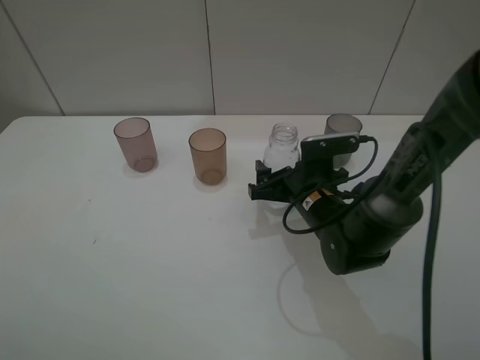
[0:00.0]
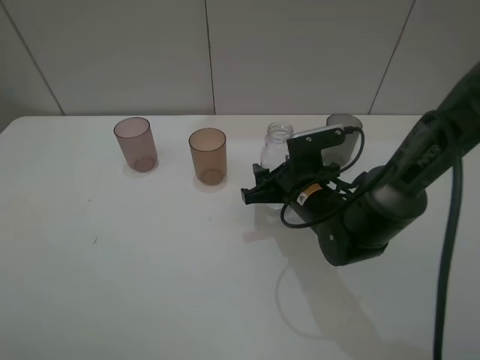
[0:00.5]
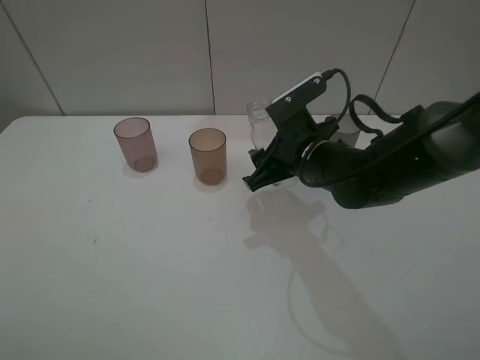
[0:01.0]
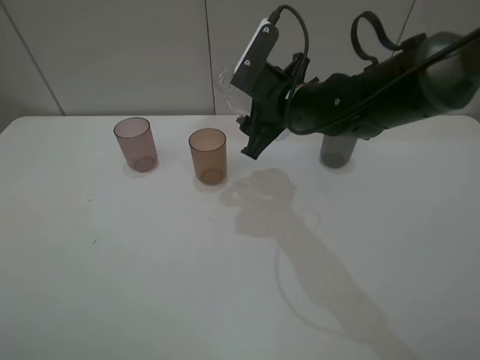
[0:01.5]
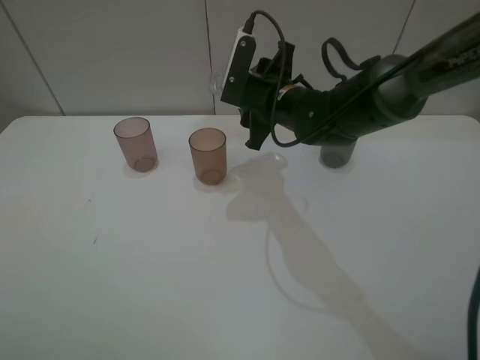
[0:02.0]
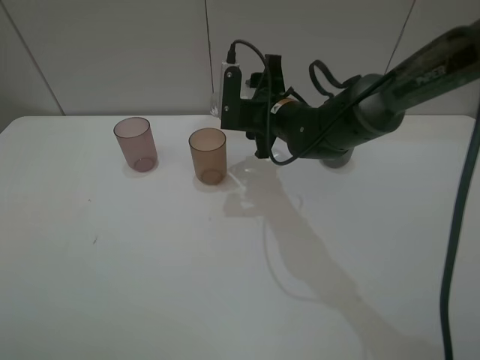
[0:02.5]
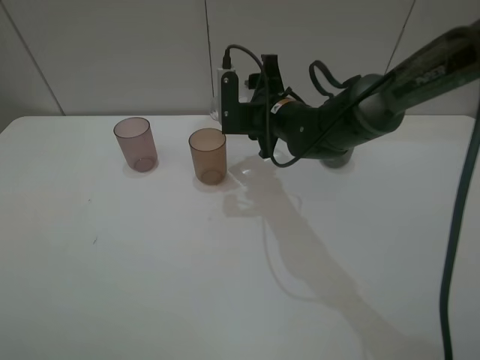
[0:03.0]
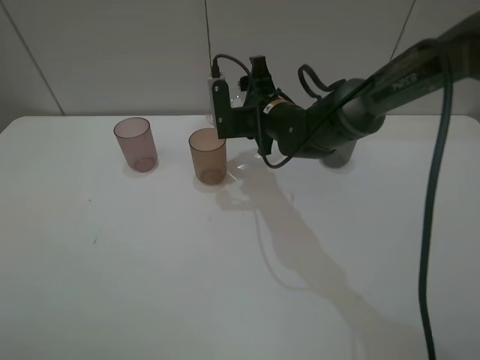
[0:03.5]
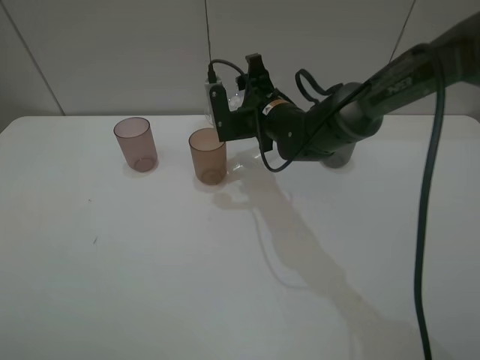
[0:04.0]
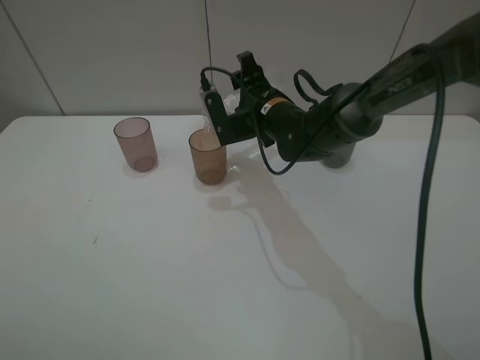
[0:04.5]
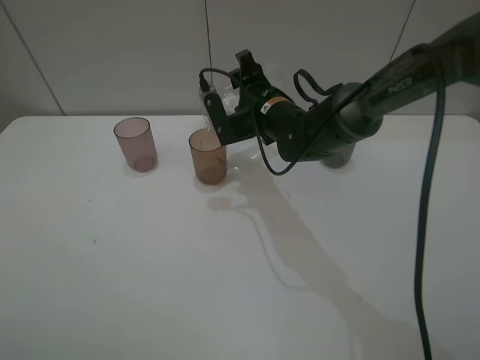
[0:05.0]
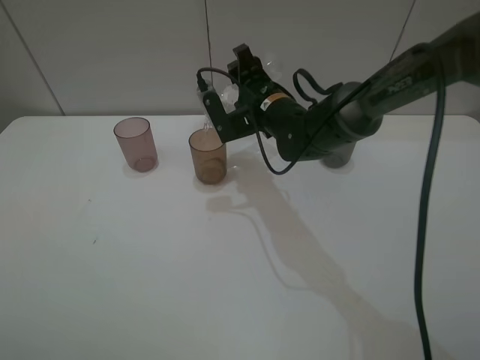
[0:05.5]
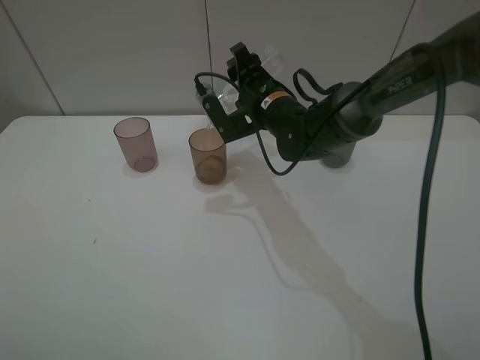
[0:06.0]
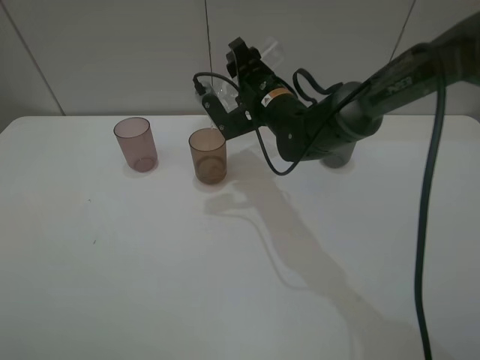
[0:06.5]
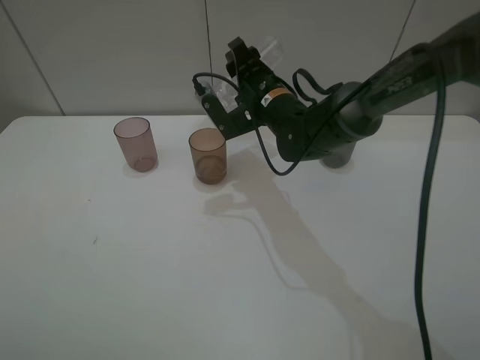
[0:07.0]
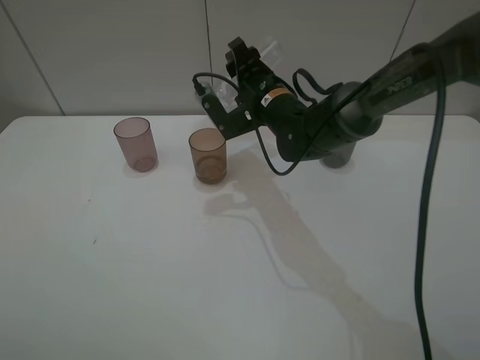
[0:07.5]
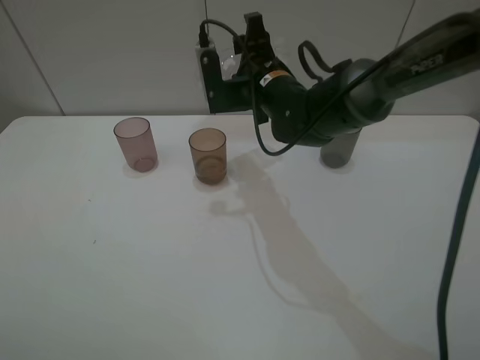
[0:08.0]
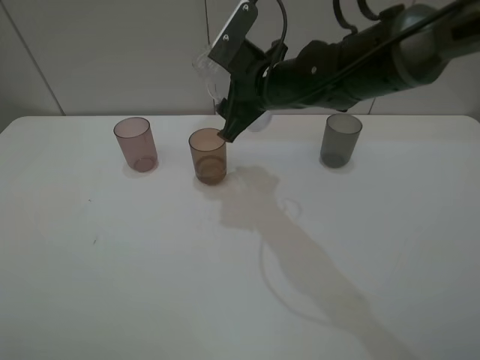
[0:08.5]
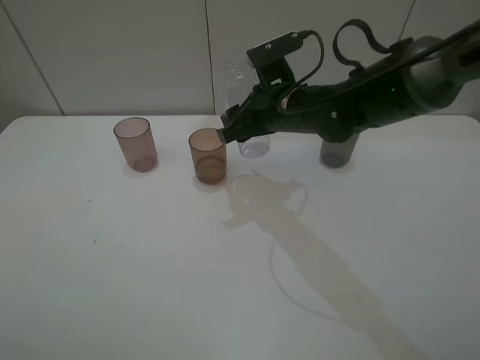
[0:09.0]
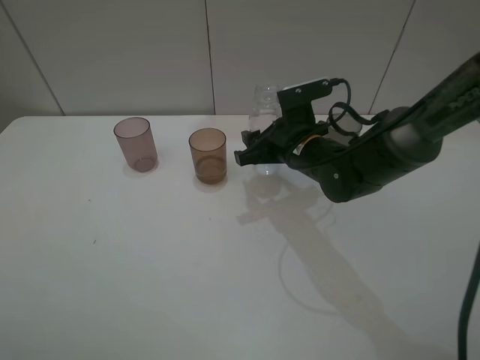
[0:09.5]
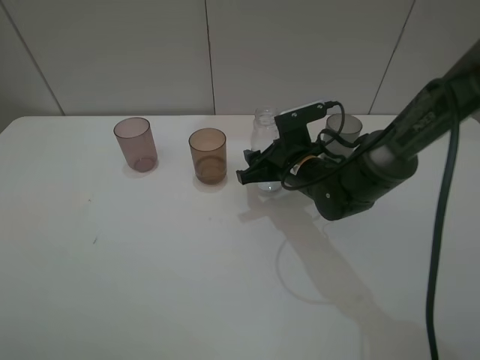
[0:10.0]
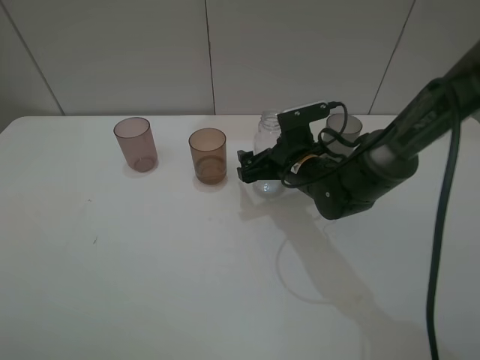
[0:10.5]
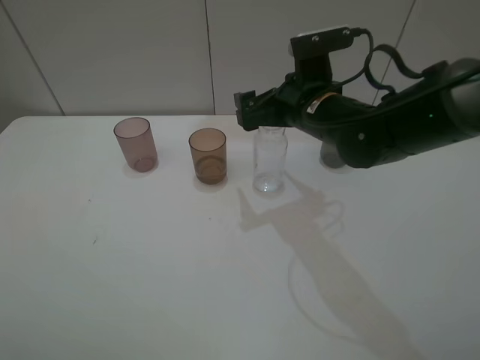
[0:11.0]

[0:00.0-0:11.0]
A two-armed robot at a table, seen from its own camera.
Task of the whole recording: pick up the bottle filled with water and pour water into the middle cup of the three cups.
Step, 0:00.0 to 0:04.0: Pour water from transparent bottle tobrown cup with the right gripper.
Step, 0:04.5 to 0:10.5: Place the transparent bottle with the right gripper.
0:00.0 to 0:02.0: The right gripper heads upward and forward, covering some 15 cm, and closes its fingers.
0:05.5 to 0:07.5: There are only small adjustments of the grippers.
0:07.5 to 0:09.0: The right gripper moves approximately 5 cm.
0:09.0 to 0:11.0: The right gripper goes downward and returns, approximately 10 cm each way, and opens its fingers.

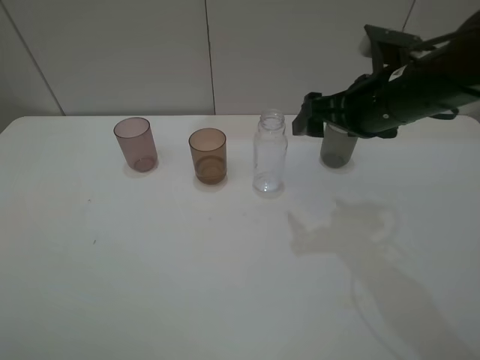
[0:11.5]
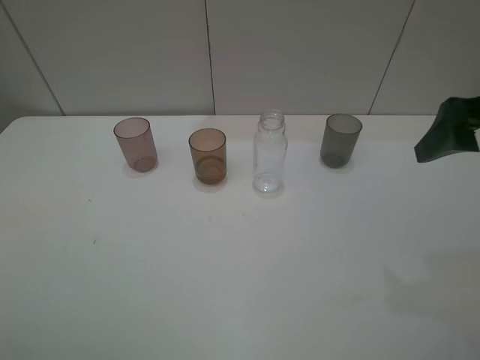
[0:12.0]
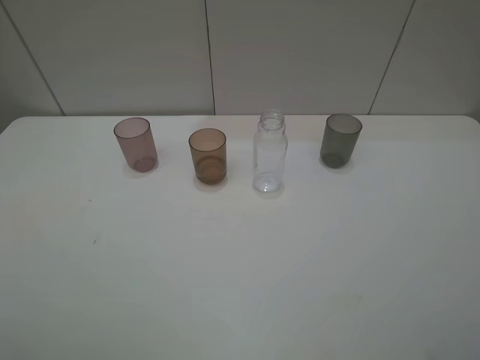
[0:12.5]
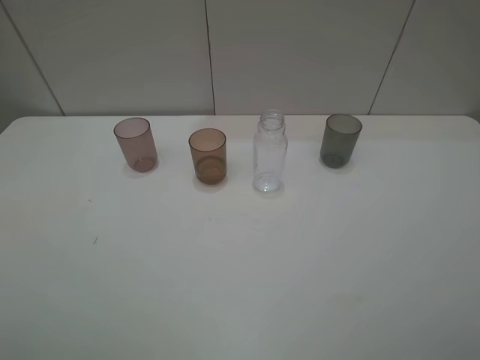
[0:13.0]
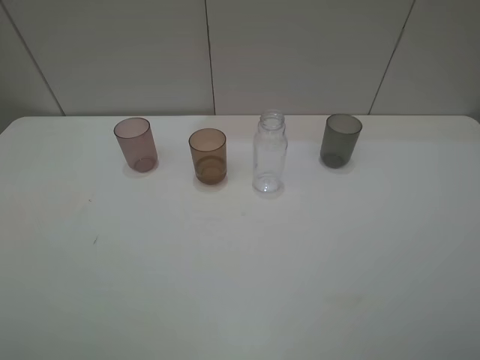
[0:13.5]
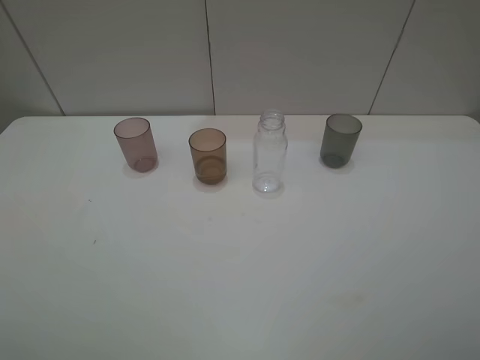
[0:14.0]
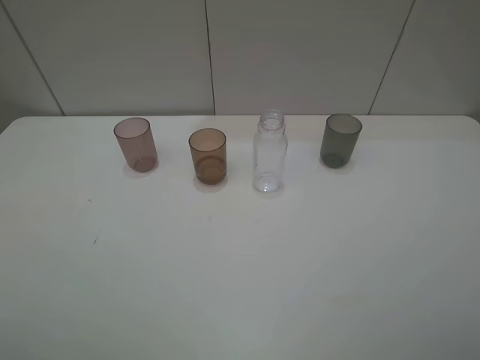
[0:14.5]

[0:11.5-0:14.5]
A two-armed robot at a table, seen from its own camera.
Task of the whole recording: pick up the bottle filled with water and pour water into the middle cup of the three cups.
0:11.5 to 0:13.0: The right gripper heads backward and upward, covering approximately 30 cm.
